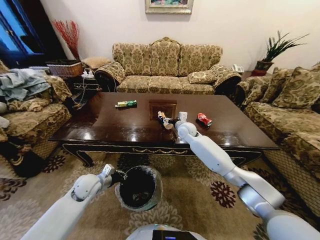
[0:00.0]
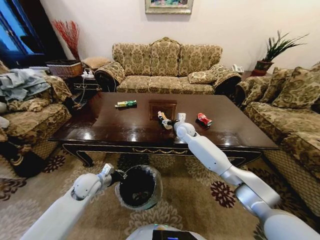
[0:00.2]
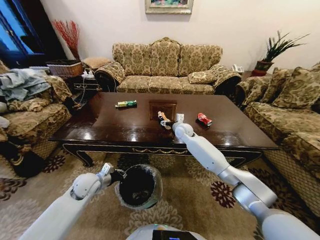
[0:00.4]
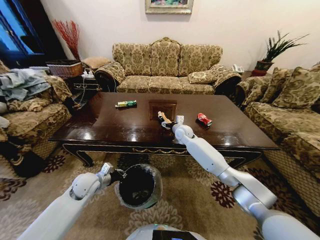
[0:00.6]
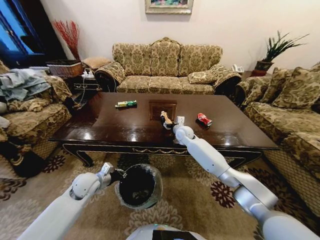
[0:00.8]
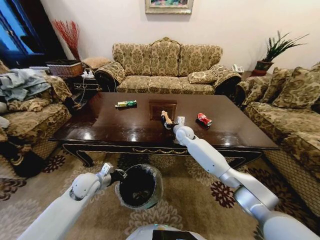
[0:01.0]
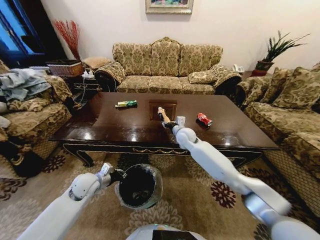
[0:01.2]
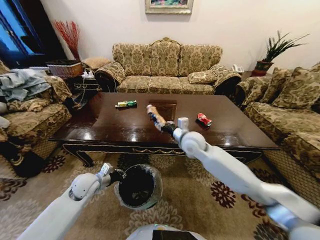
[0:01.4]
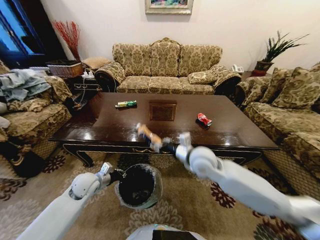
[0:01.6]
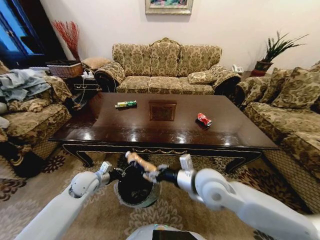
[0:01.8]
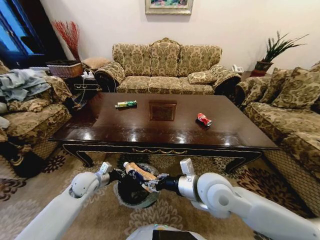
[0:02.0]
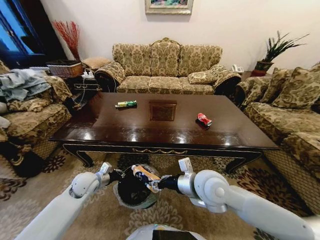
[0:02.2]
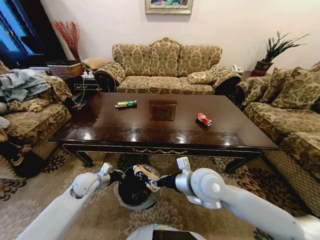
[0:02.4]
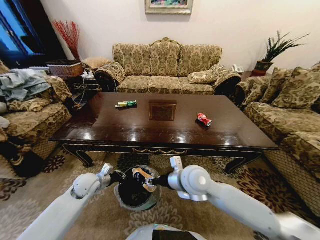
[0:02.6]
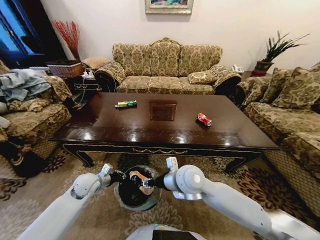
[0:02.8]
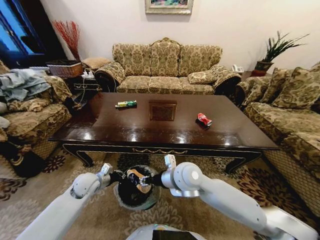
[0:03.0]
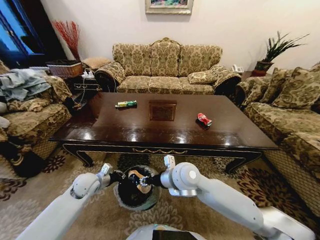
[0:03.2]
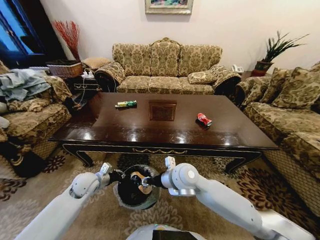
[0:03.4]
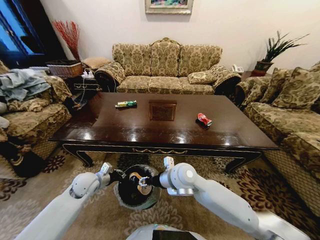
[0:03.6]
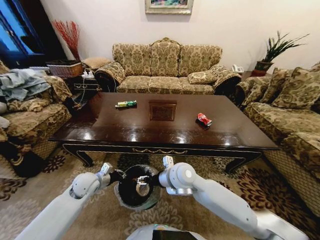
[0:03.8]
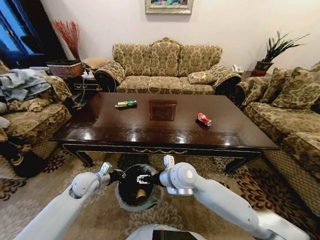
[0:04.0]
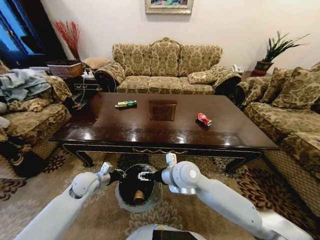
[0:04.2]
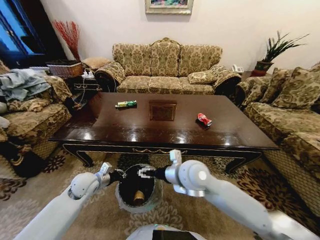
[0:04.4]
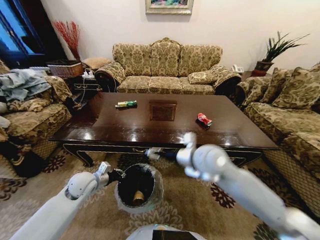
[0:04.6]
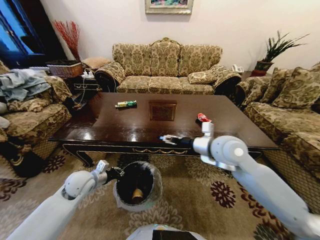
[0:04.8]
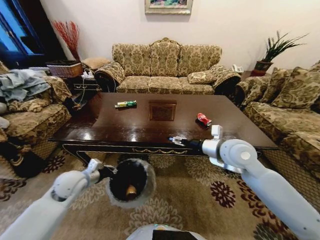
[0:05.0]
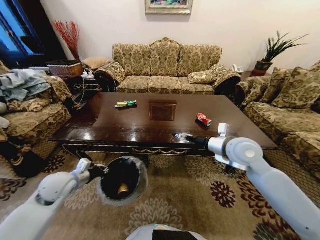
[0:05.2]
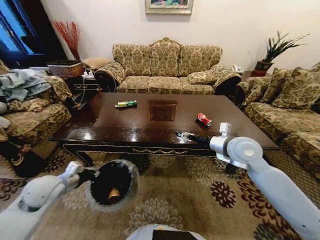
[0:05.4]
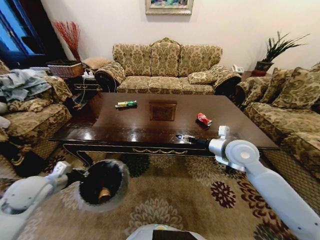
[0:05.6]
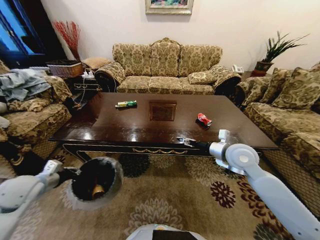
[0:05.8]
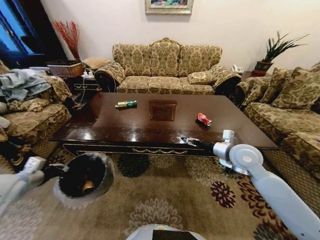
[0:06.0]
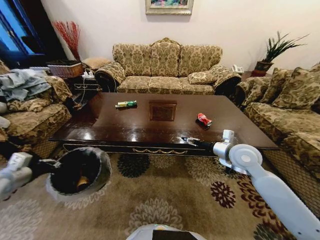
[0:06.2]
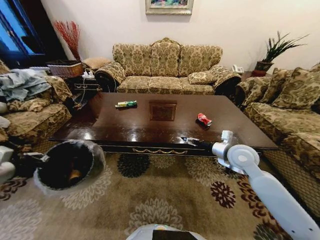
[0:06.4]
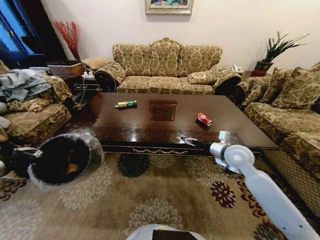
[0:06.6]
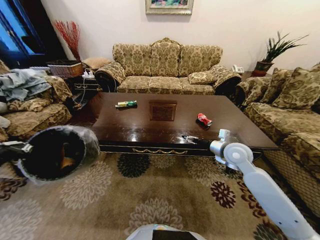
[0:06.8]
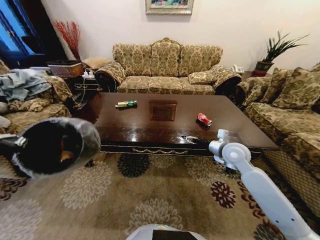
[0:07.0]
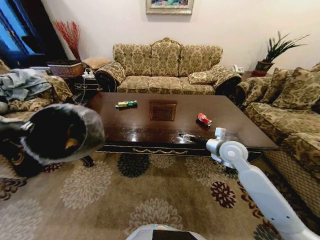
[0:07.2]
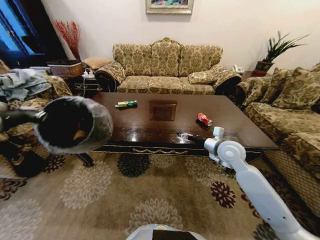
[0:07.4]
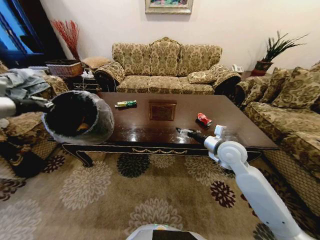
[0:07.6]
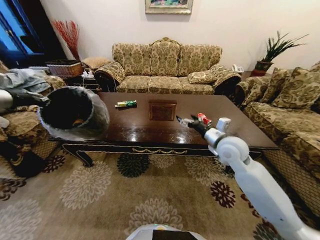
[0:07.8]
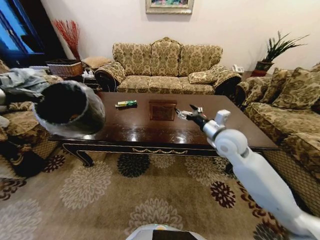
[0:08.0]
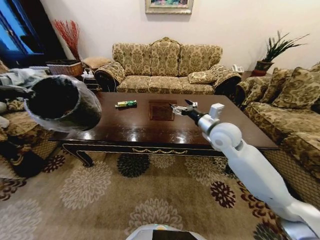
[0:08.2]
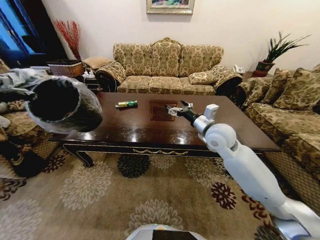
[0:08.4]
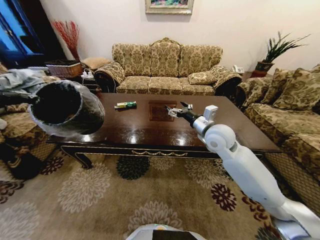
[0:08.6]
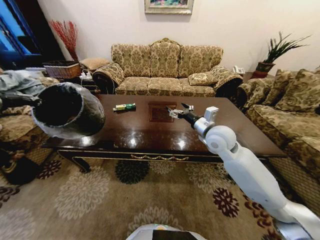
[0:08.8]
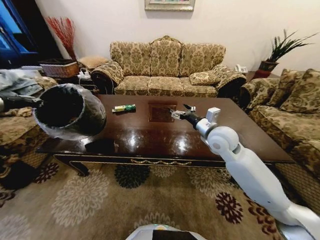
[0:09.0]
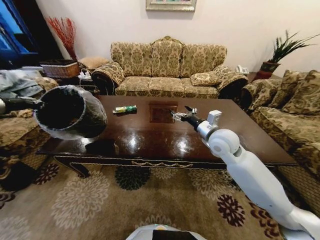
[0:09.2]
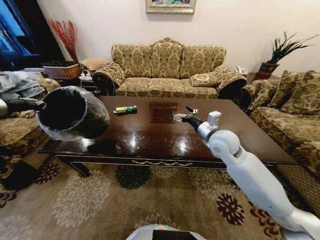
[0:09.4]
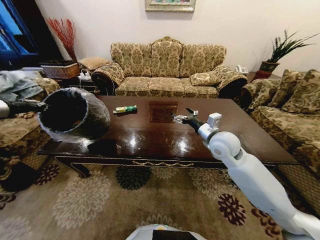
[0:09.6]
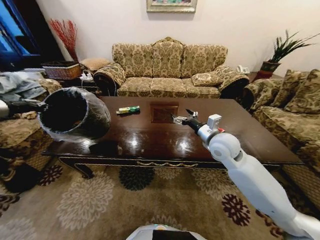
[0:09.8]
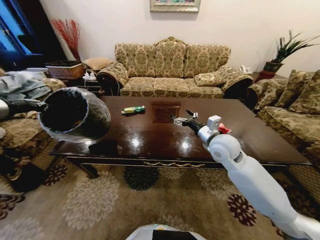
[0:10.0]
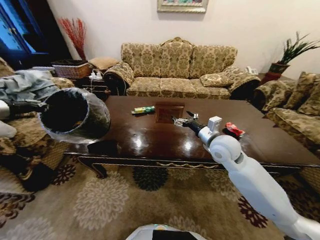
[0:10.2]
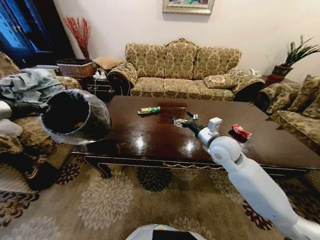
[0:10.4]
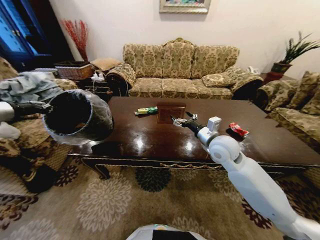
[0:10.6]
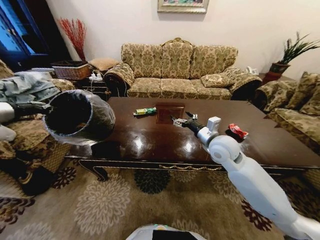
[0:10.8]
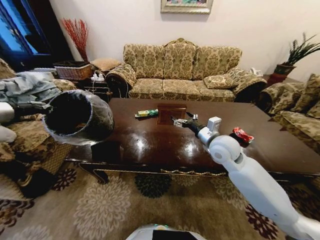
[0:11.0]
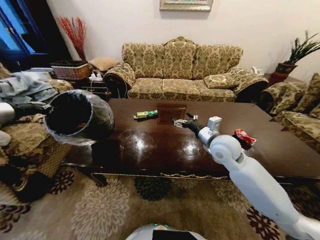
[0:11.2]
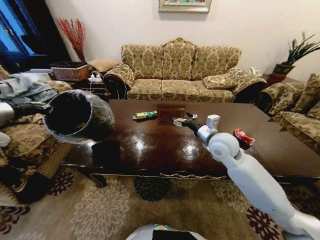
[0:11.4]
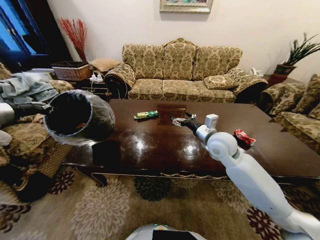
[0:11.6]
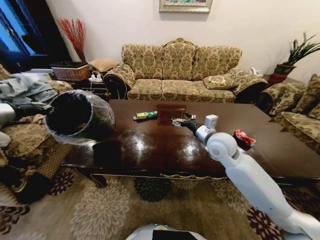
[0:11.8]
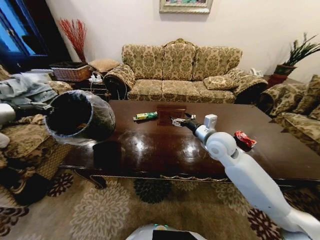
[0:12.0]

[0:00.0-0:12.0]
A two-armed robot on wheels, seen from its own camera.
Task of the whole recording: Move to the front of the table and place the trash on the table into the trash bin.
0:00.0 to 0:01.6: The right gripper travels backward by some 20 cm, and closes up.
0:01.6 to 0:03.0: The right gripper travels to the left by roughly 5 cm.
0:03.0 to 0:04.4: The right gripper opens.
0:04.4 to 0:06.0: The right gripper heads to the right, covering roughly 20 cm; the left gripper is displaced to the left, upward and backward by roughly 20 cm.
0:06.0 to 0:07.6: The left gripper moves upward and forward, some 25 cm.
0:07.6 to 0:09.0: The left gripper moves to the left, roughly 10 cm; the right gripper heads upward, covering about 5 cm.

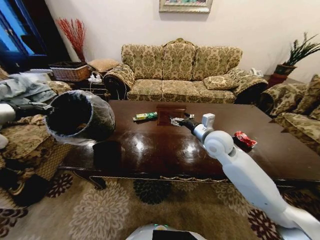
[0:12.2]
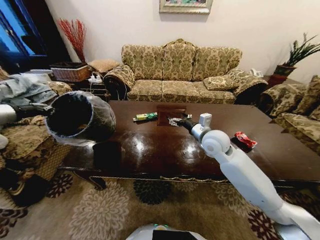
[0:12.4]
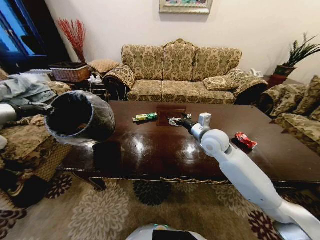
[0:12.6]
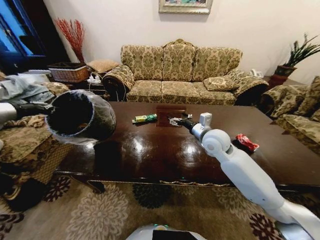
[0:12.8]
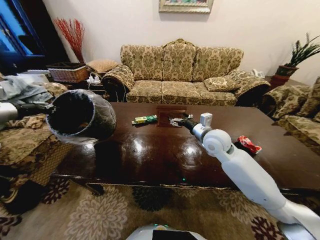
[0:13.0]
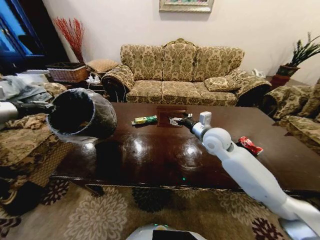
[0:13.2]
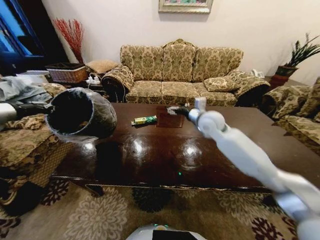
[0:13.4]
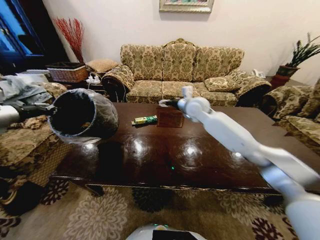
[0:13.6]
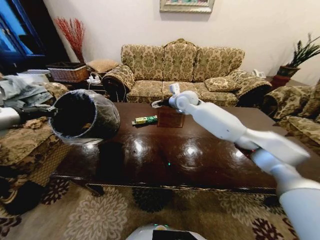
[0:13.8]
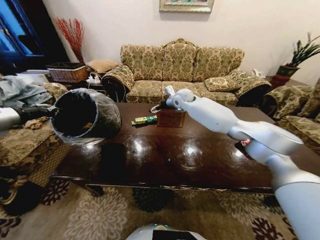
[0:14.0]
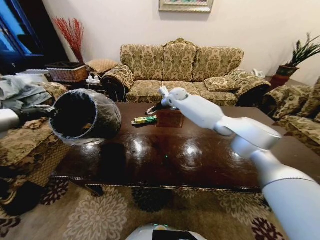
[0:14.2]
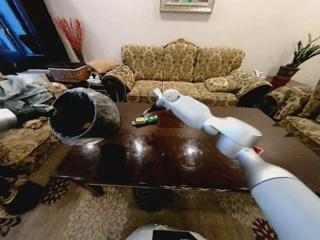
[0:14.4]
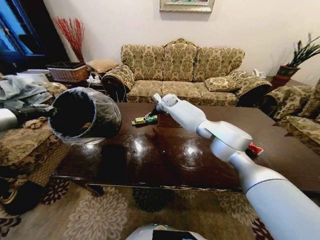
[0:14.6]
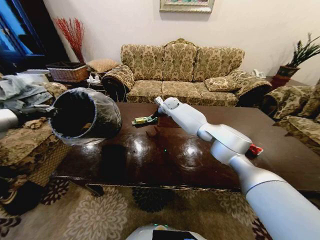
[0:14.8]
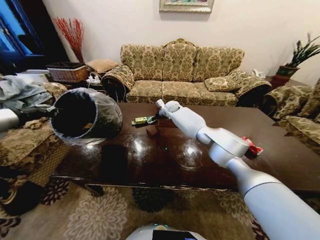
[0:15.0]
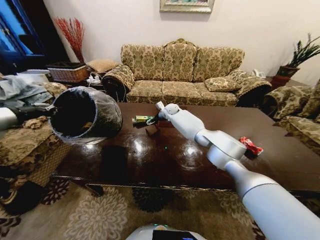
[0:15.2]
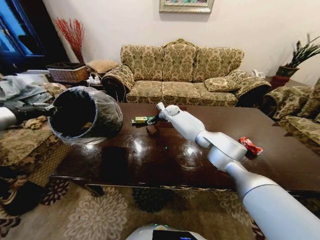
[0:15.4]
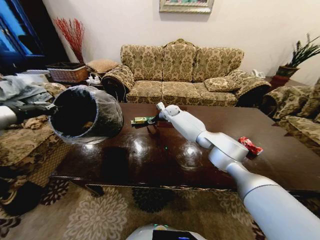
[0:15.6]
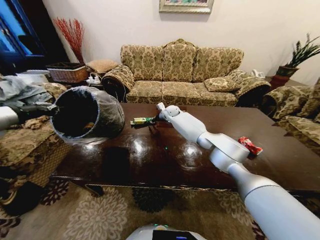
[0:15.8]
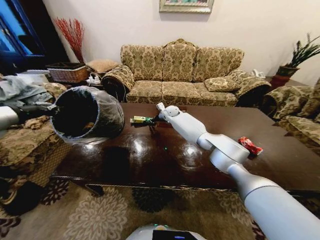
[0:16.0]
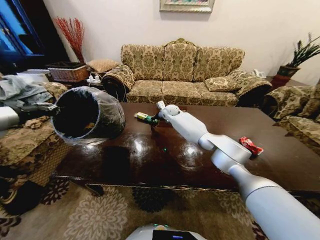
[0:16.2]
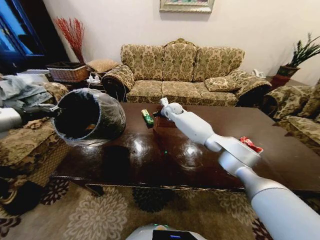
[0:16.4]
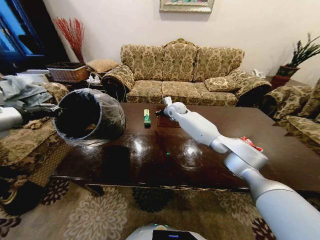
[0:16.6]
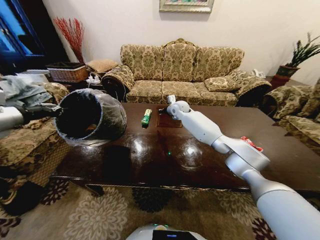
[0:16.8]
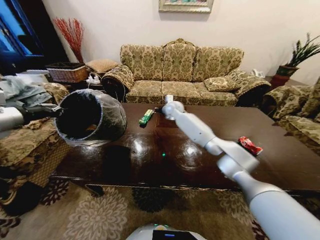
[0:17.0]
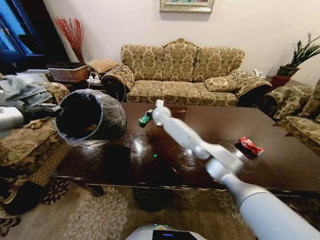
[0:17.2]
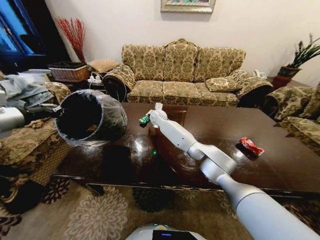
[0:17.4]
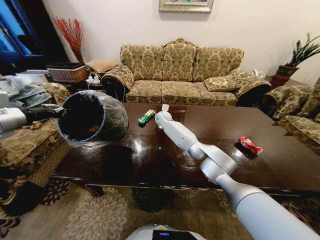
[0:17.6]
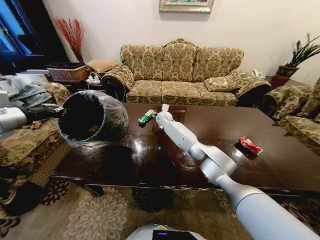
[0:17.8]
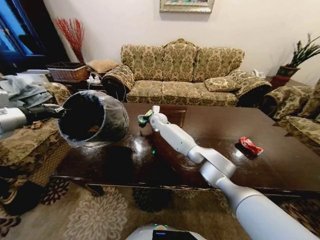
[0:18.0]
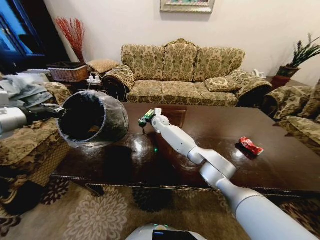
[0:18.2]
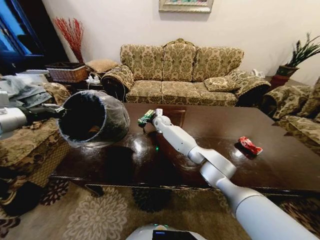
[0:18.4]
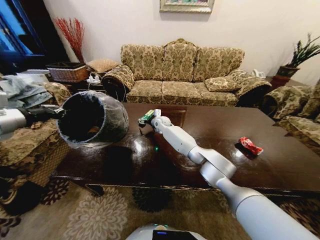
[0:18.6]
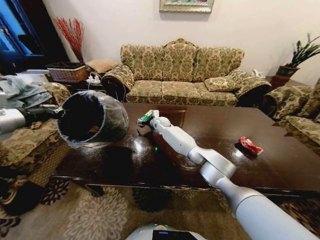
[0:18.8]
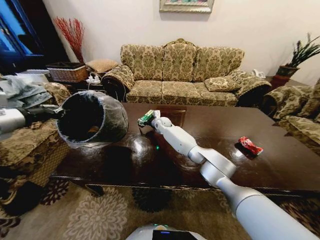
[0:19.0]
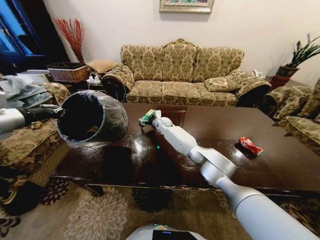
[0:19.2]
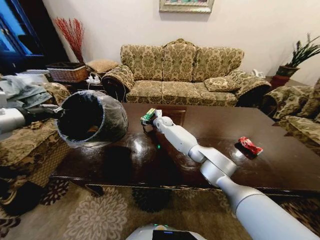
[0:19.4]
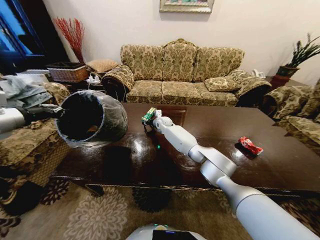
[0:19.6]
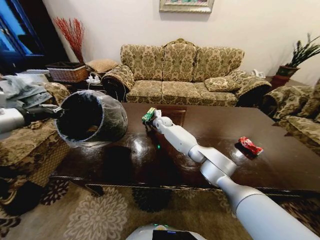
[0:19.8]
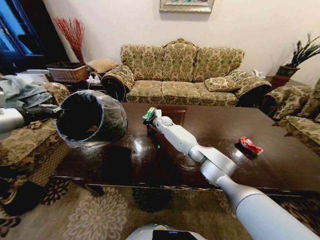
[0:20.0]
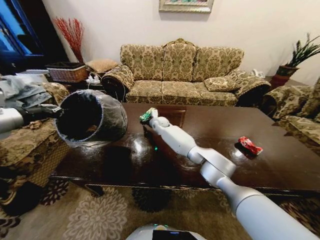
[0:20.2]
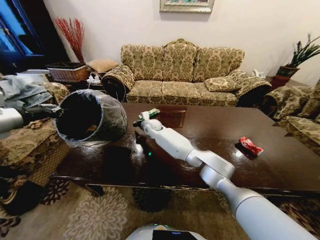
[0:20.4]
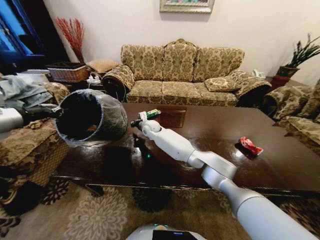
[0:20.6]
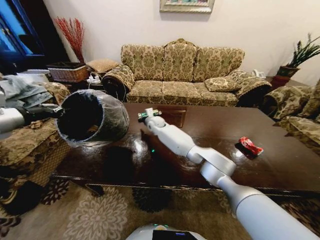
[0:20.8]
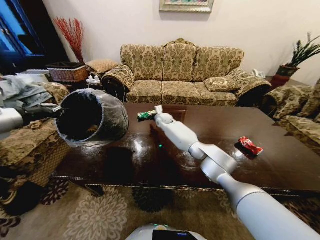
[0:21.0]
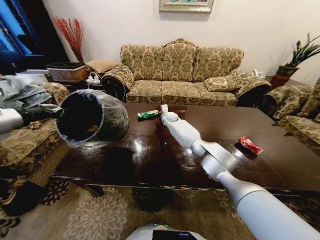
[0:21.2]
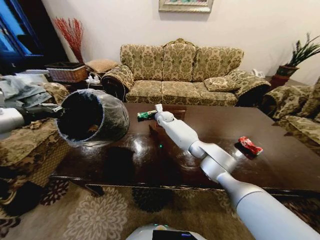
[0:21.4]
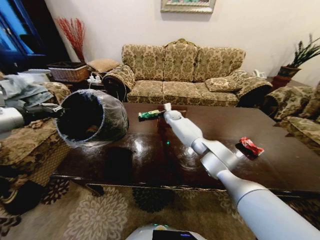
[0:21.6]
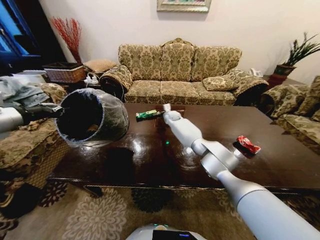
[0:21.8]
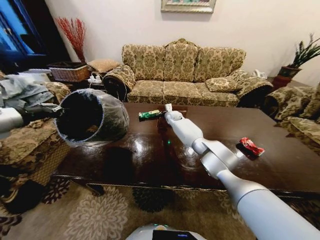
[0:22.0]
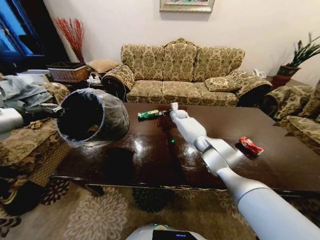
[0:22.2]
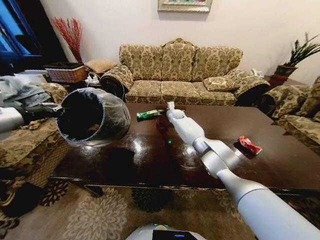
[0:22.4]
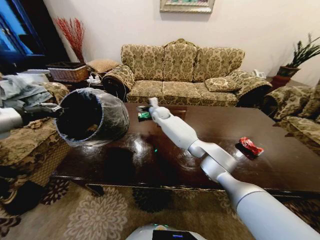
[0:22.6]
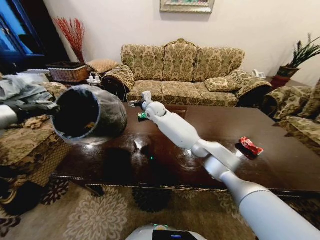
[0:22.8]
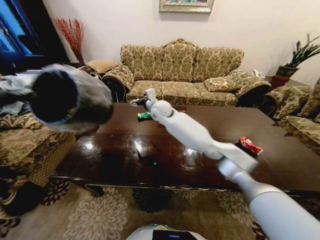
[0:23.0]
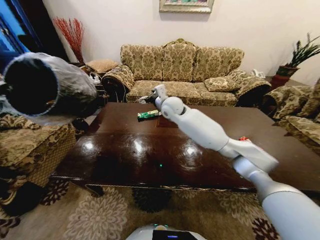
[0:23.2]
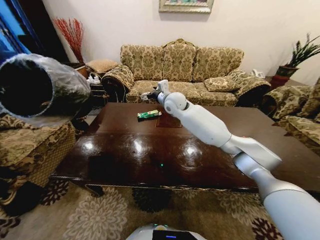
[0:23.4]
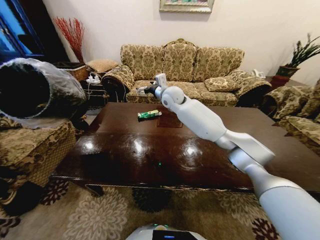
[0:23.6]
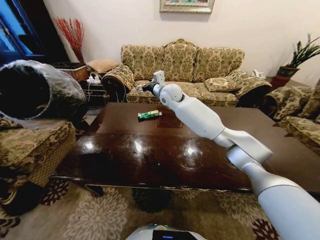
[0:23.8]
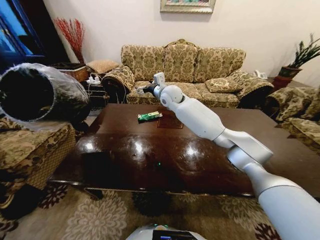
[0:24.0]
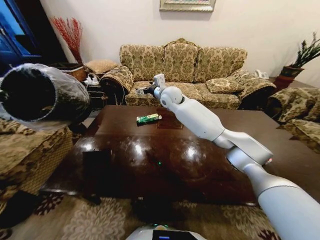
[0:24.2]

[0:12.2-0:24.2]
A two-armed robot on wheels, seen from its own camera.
Task of the whole recording: Move to the front of the table and place the trash on the table into the trash bin.
0:12.2 to 0:13.8: The right gripper goes about 20 cm forward, to the left and upward.
0:13.8 to 0:15.2: The right gripper travels downward, forward and to the left by some 15 cm.
0:15.2 to 0:16.6: The right gripper ends up some 5 cm from where it was, and closes up.
0:16.6 to 0:18.2: The right gripper shifts approximately 10 cm to the left and downward, and opens.
0:18.2 to 0:19.8: The right gripper closes its fingers.
0:19.8 to 0:21.2: The right gripper reaches about 10 cm to the left, then returns.
0:21.2 to 0:22.6: The right gripper changes place by some 5 cm, and opens its fingers.
0:22.6 to 0:24.2: The right gripper heads upward and backward, covering about 15 cm, while the left gripper heads to the left, covering some 15 cm.
